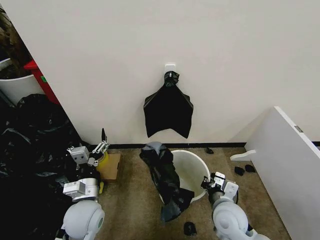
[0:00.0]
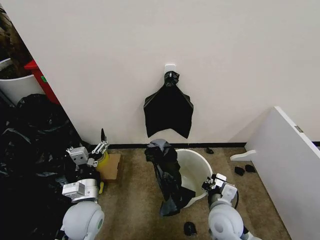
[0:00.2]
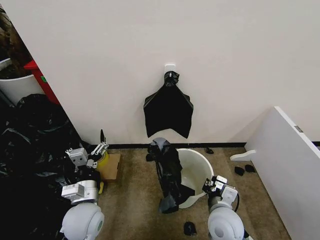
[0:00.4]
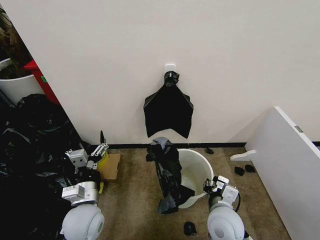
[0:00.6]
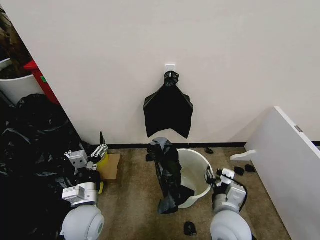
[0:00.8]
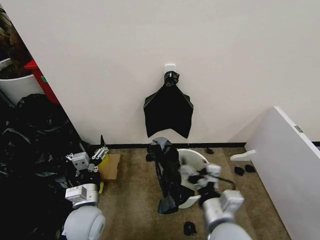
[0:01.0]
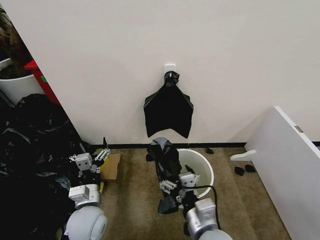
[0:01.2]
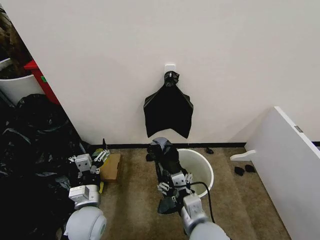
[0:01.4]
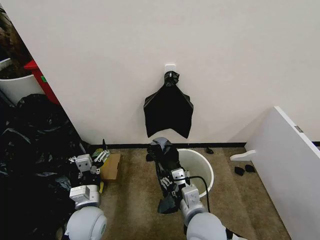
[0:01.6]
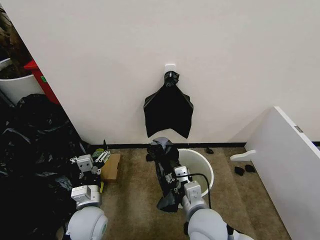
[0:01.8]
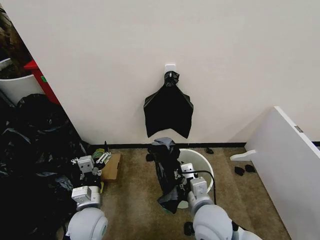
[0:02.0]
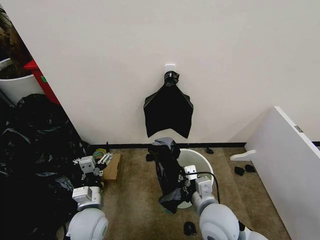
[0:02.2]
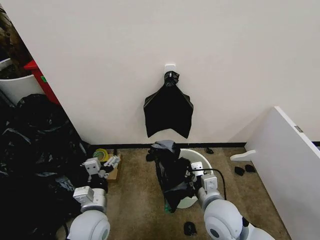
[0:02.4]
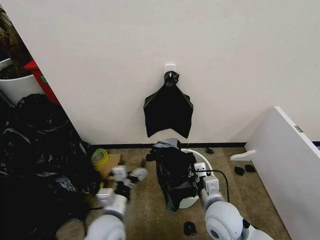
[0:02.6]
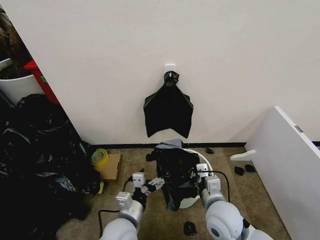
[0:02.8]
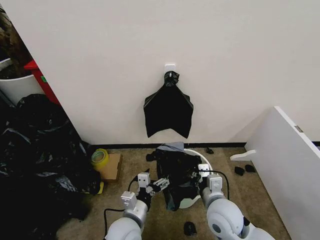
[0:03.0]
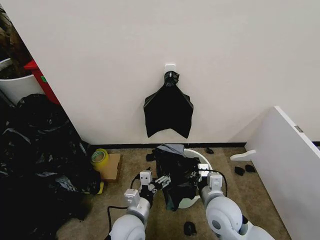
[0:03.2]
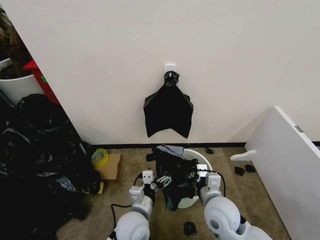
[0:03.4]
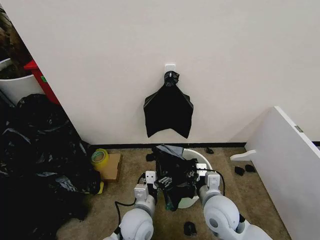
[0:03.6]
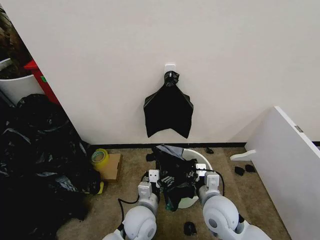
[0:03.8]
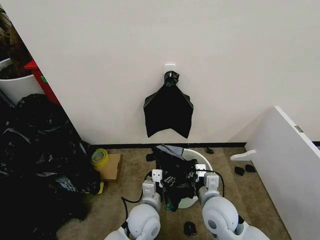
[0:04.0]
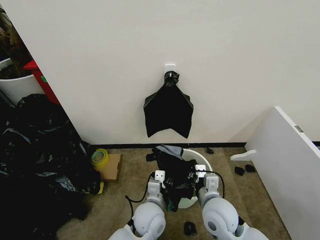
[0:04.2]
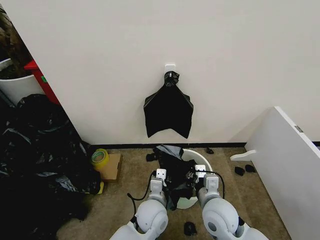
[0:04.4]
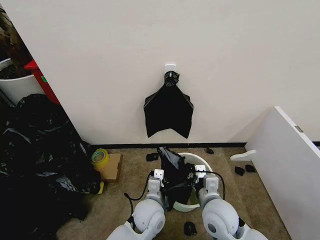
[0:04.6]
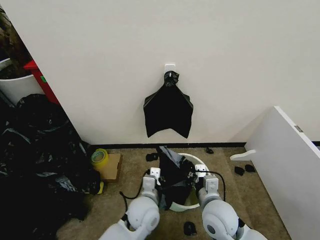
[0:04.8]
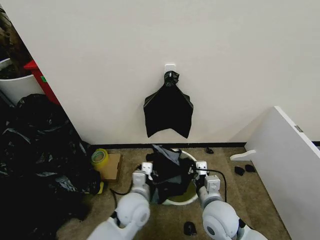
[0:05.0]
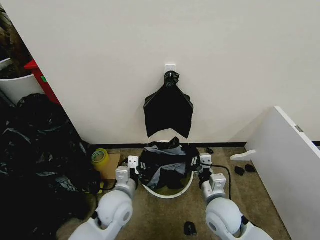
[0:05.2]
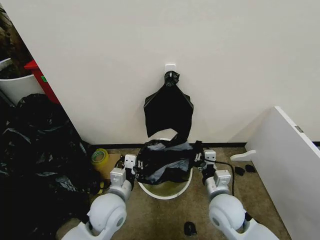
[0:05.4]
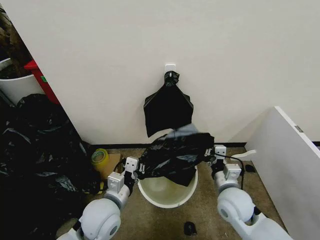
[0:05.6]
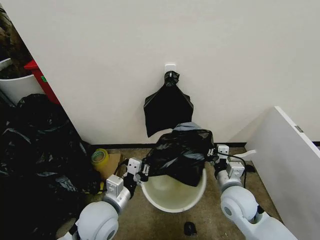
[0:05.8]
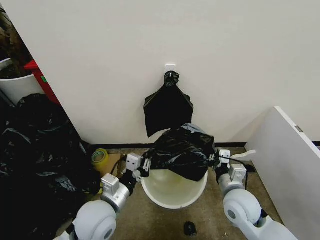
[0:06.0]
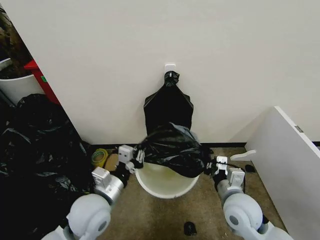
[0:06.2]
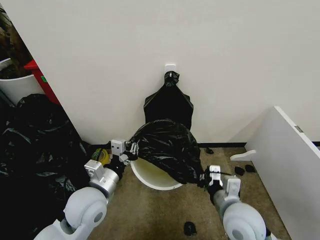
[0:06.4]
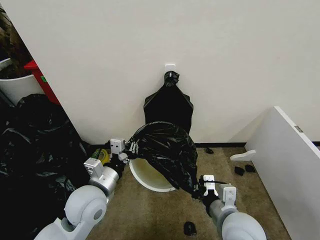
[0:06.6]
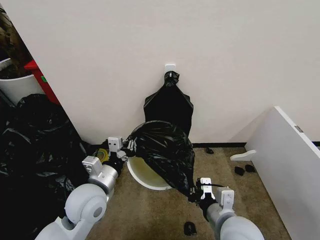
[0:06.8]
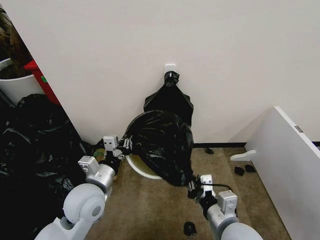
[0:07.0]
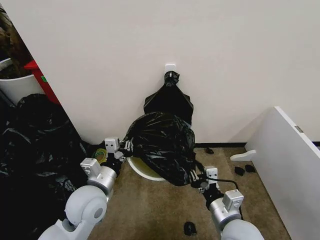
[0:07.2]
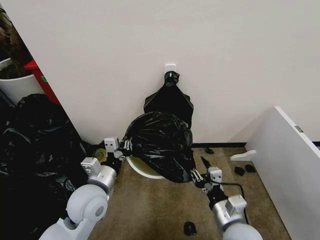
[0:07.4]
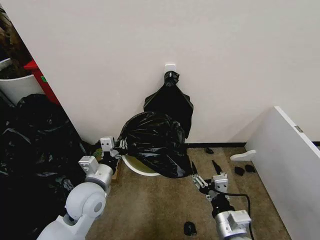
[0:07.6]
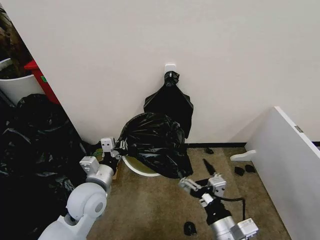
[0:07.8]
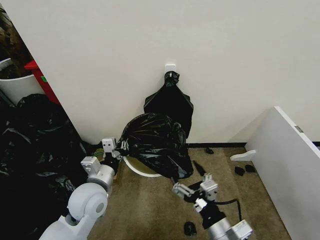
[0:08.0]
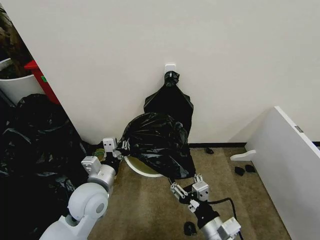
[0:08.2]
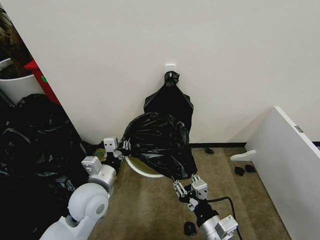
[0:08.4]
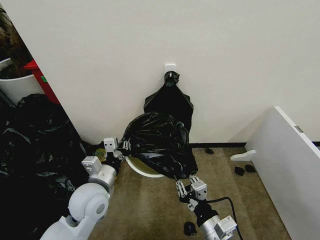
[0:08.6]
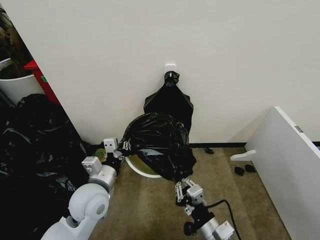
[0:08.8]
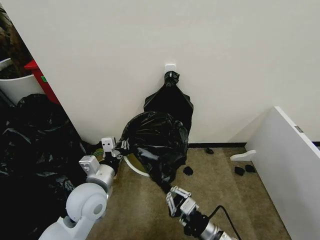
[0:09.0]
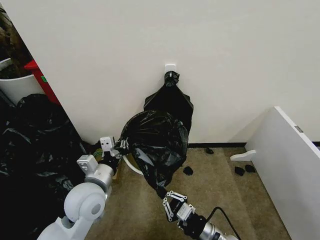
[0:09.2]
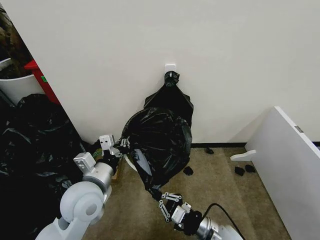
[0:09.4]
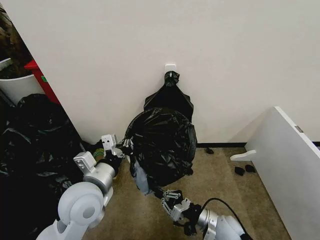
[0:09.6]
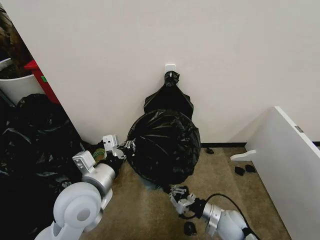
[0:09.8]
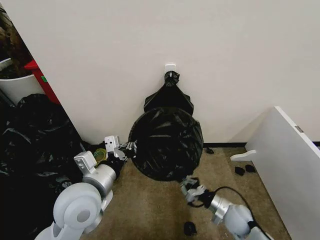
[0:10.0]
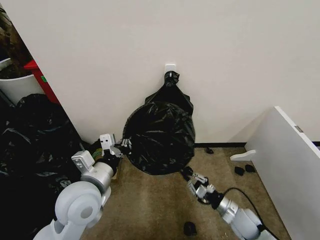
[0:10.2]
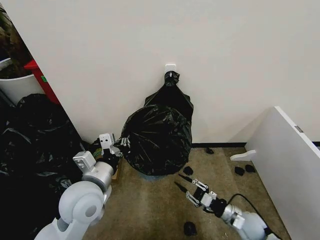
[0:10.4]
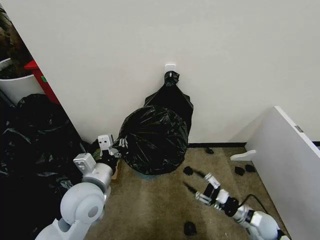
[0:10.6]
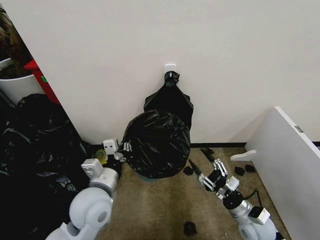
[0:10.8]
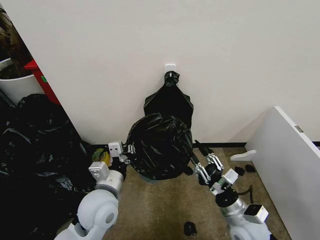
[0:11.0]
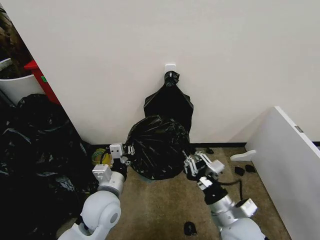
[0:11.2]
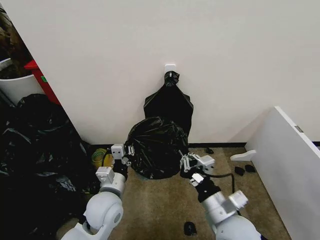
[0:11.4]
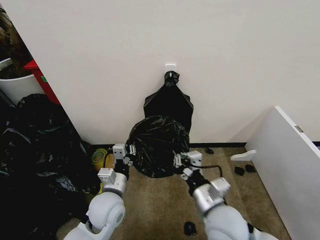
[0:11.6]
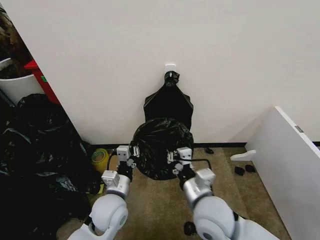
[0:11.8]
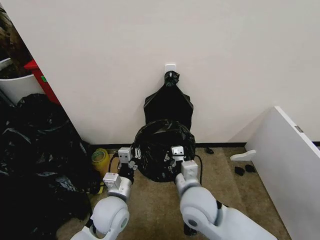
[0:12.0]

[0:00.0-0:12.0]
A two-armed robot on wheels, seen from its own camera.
Task of the whole recording: Place the garbage bag over the trash bin.
0:00.0 to 0:01.6: The right gripper is displaced to the left, upward and backward by some 15 cm, and opens.
0:01.6 to 0:03.0: Both grippers move to the right, some 10 cm. The right gripper closes.
0:03.0 to 0:04.4: The left gripper moves to the right and forward, approximately 10 cm, and closes up.
0:04.4 to 0:06.0: The right gripper goes approximately 5 cm to the right, while the left gripper travels to the left and upward by about 15 cm, and closes.
0:06.0 to 0:07.6: The left gripper ends up some 5 cm from where it was; the right gripper travels backward by roughly 10 cm, and opens its fingers.
0:07.6 to 0:09.0: The right gripper travels downward by roughly 5 cm, and closes up.
0:09.0 to 0:10.4: The right gripper heads to the right, forward and downward, covering approximately 20 cm.
0:10.4 to 0:12.0: The right gripper moves to the left and upward, roughly 30 cm; the left gripper is displaced downward by roughly 10 cm.

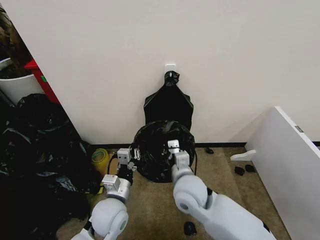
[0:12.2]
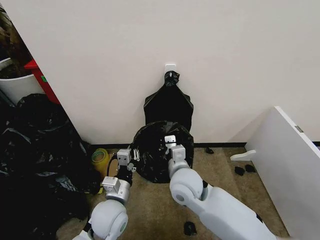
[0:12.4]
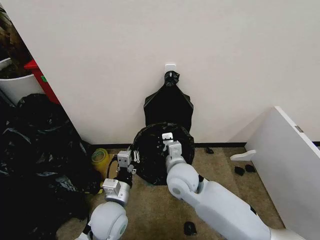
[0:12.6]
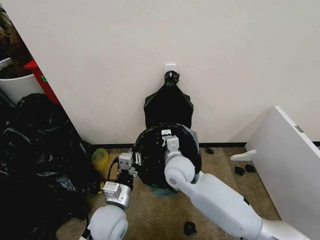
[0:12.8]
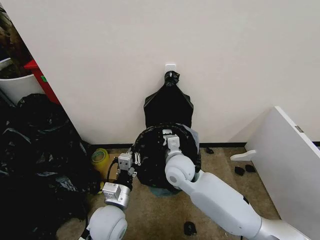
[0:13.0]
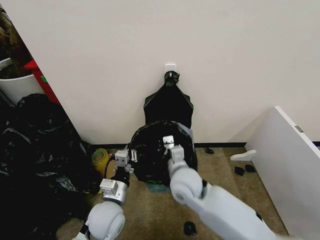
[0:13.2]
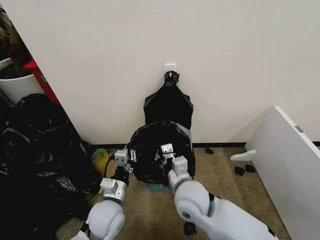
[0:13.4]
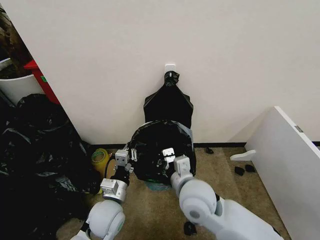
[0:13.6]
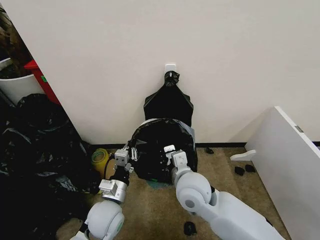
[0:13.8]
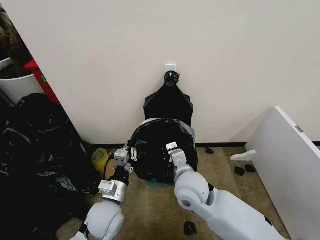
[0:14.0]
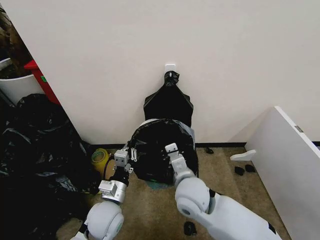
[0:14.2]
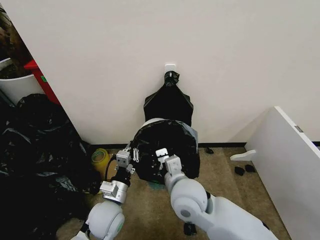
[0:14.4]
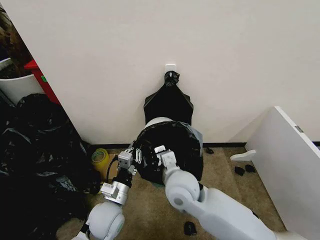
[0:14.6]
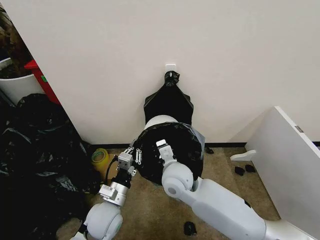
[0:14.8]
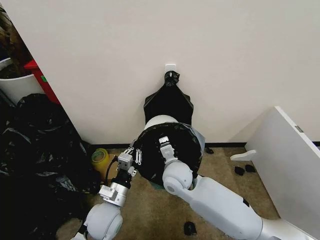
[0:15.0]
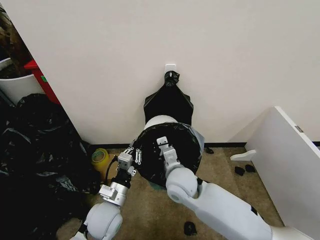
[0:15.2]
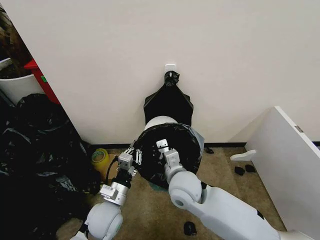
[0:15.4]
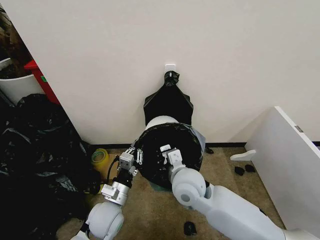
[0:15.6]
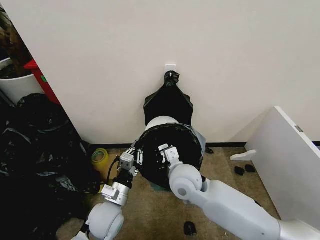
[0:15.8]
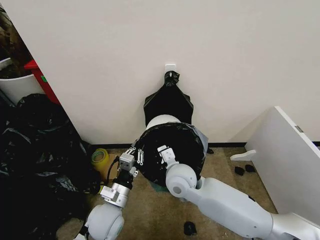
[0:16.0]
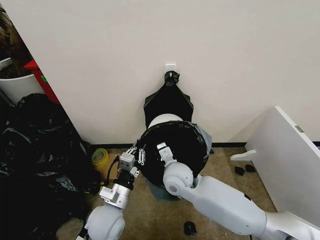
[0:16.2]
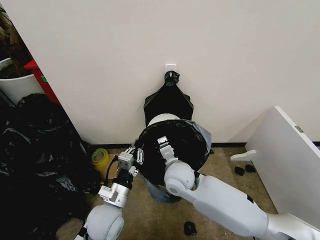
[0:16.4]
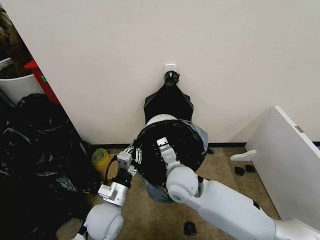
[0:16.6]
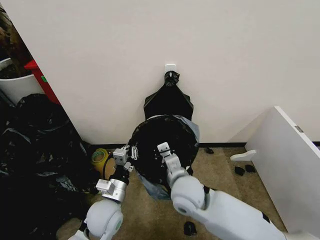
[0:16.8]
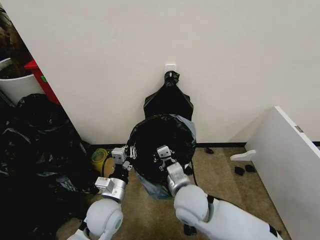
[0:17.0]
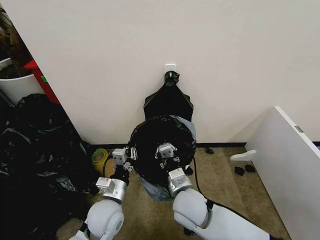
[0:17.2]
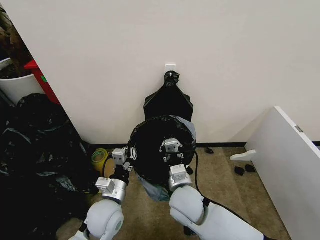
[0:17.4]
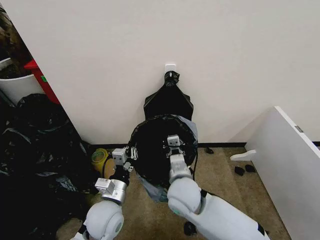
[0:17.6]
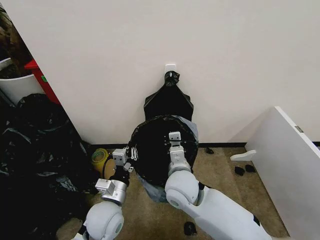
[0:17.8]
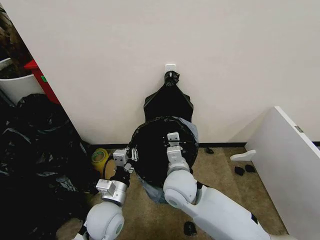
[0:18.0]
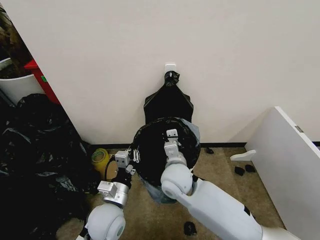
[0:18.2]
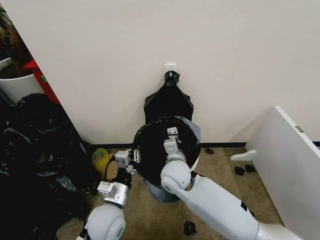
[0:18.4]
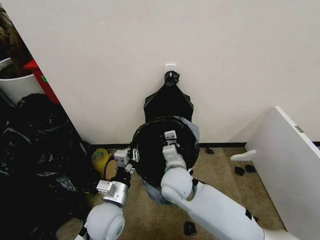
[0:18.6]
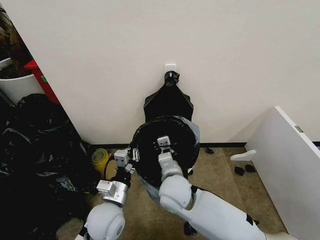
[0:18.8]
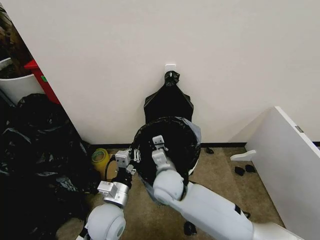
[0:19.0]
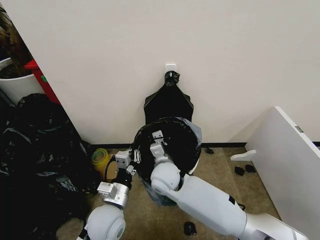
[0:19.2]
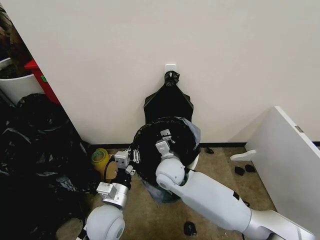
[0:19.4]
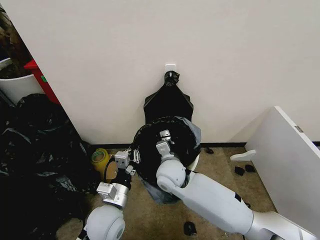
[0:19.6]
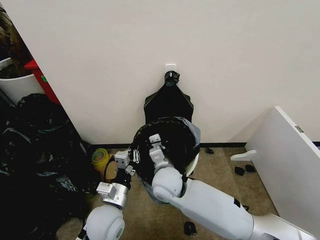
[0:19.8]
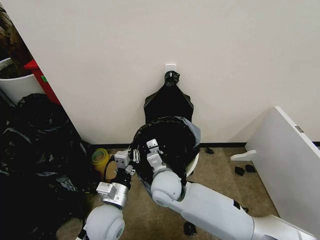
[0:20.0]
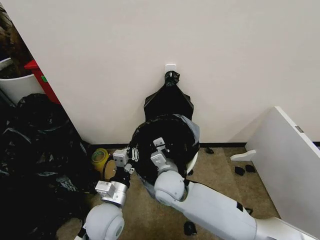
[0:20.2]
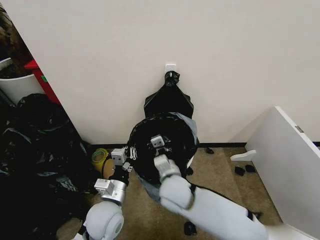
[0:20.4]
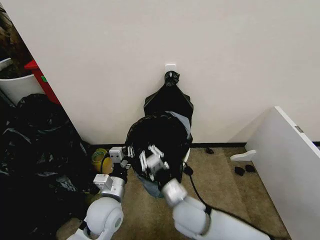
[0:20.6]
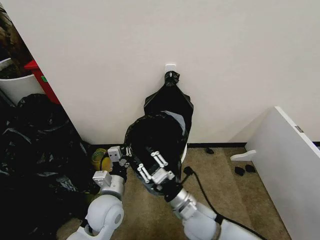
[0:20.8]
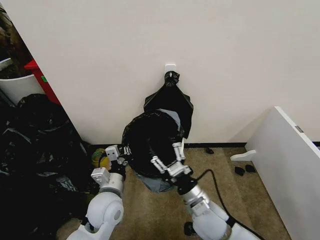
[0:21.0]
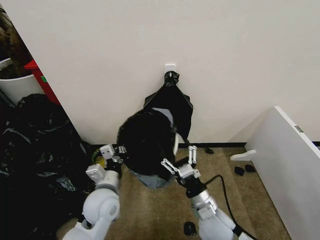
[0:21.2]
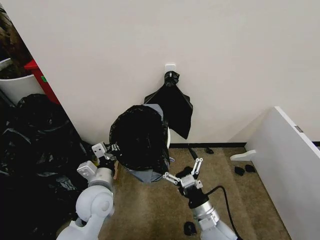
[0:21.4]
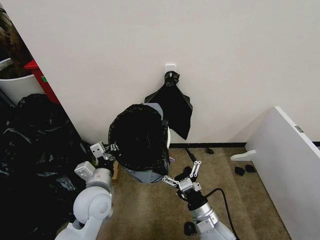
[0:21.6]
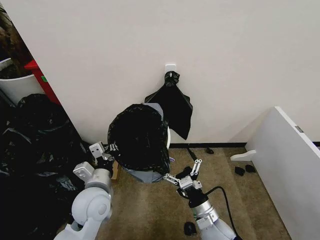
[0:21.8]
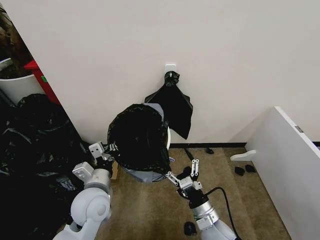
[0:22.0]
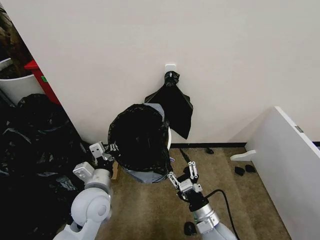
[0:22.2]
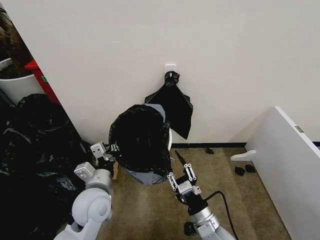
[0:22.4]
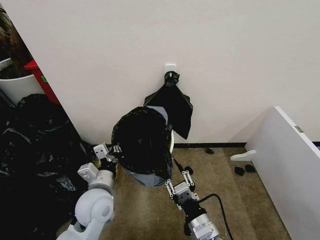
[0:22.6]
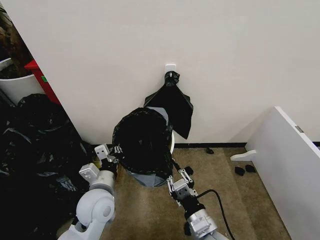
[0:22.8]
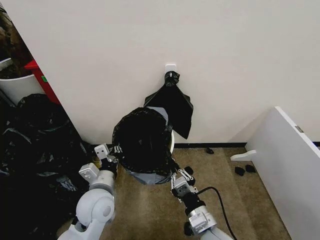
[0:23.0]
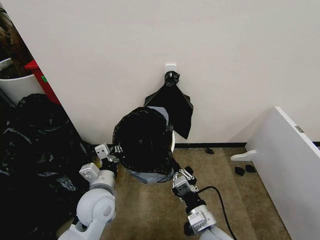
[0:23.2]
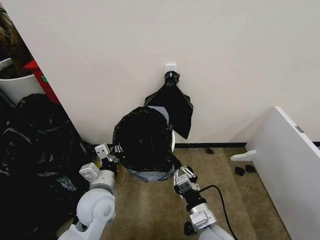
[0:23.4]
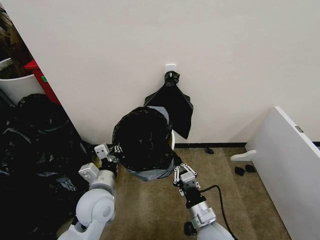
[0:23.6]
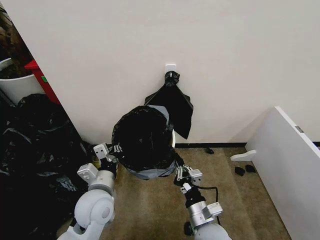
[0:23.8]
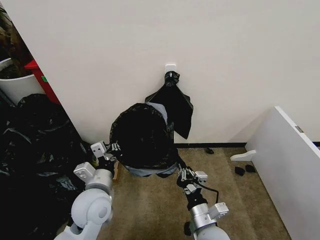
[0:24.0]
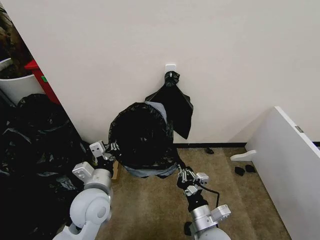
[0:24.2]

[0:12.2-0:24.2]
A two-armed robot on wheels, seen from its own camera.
Task of the whole recording: Place the garbage bag over the trash bin.
0:12.2 to 0:13.8: The right gripper moves some 10 cm forward and comes back.
0:13.8 to 0:15.2: The right gripper ends up approximately 5 cm from where it was.
0:18.2 to 0:19.8: The grippers move only a little.
0:19.8 to 0:21.2: The right gripper shifts some 15 cm to the right and backward, and opens its fingers.
0:21.2 to 0:22.6: The right gripper travels backward by some 5 cm, and closes its fingers.
0:22.6 to 0:24.2: The right gripper closes up.
